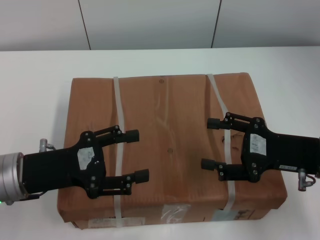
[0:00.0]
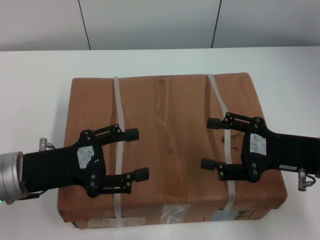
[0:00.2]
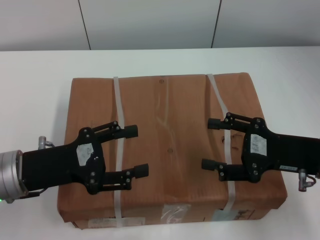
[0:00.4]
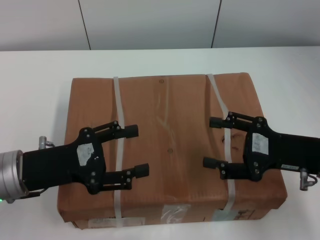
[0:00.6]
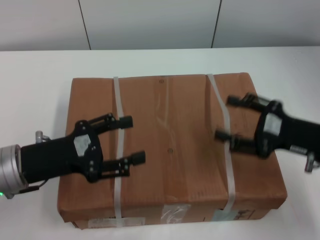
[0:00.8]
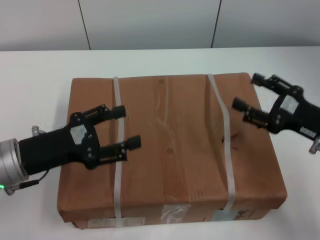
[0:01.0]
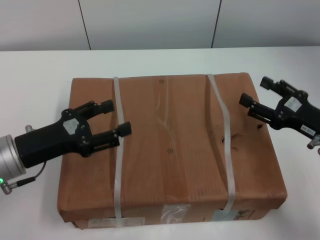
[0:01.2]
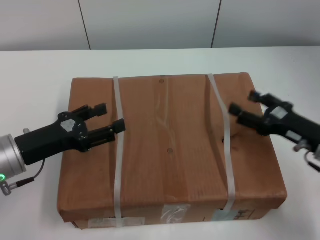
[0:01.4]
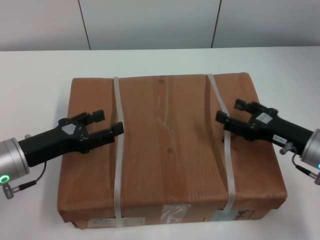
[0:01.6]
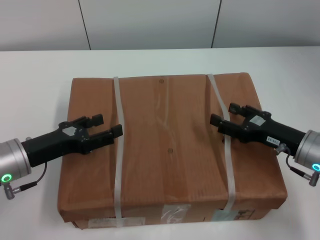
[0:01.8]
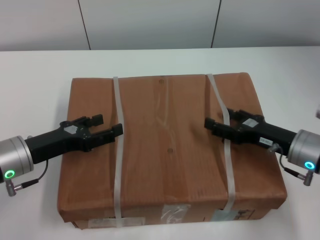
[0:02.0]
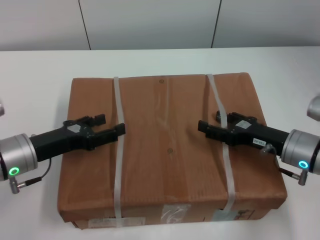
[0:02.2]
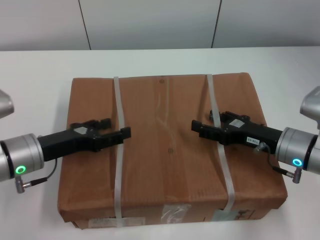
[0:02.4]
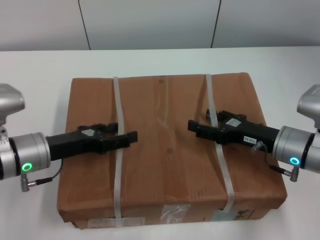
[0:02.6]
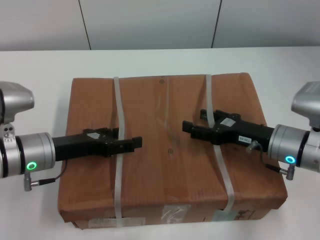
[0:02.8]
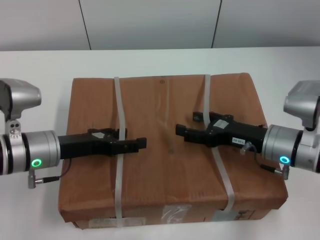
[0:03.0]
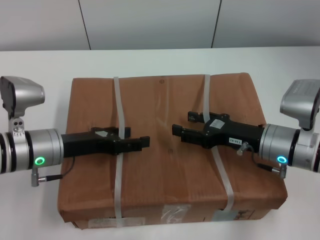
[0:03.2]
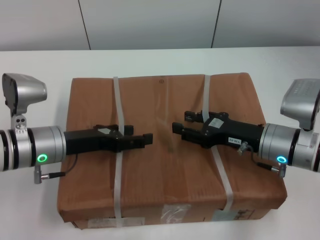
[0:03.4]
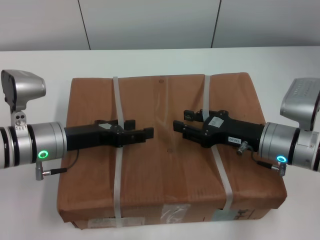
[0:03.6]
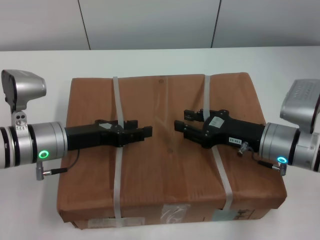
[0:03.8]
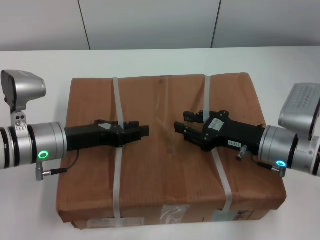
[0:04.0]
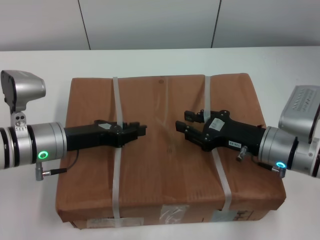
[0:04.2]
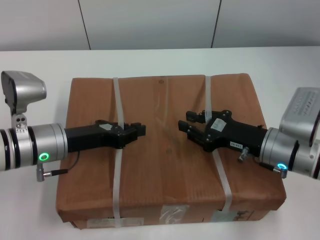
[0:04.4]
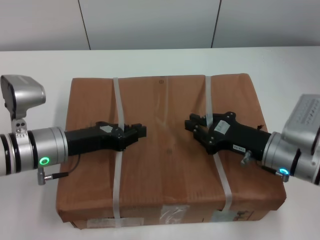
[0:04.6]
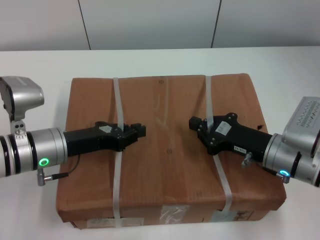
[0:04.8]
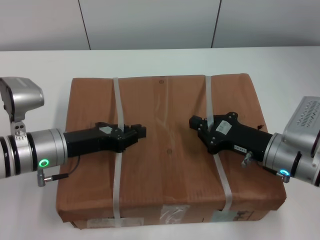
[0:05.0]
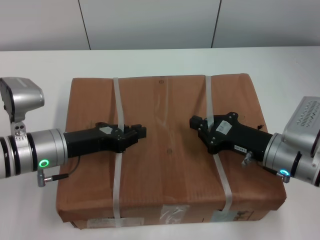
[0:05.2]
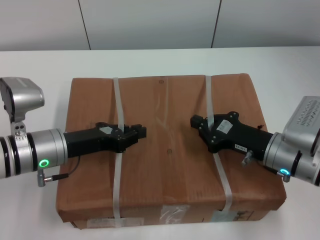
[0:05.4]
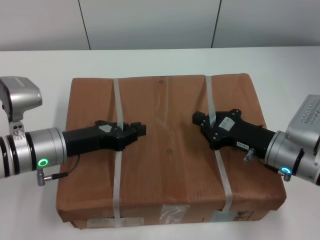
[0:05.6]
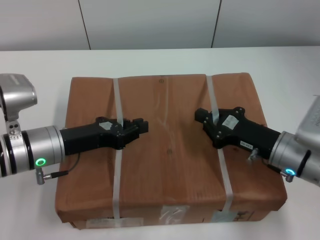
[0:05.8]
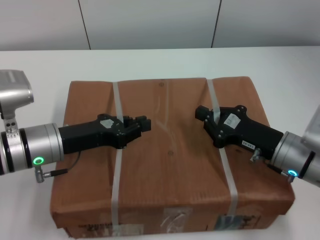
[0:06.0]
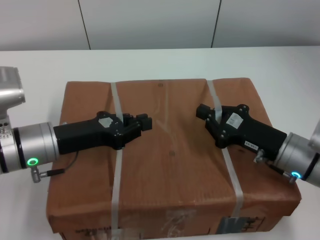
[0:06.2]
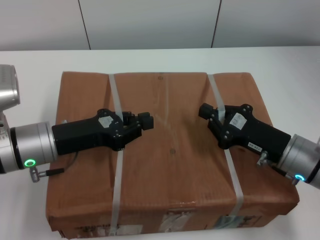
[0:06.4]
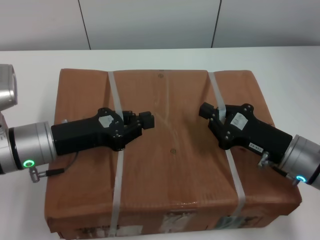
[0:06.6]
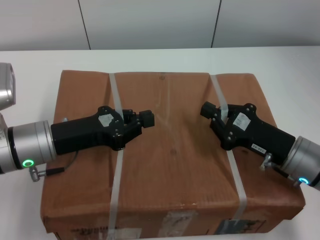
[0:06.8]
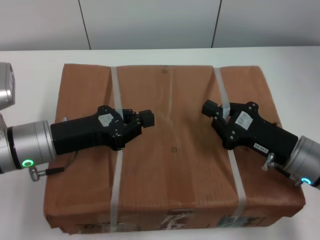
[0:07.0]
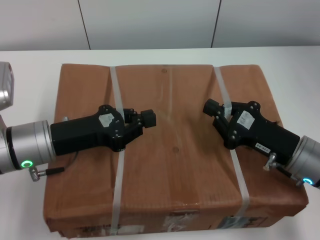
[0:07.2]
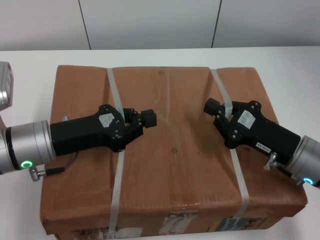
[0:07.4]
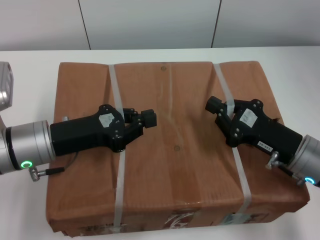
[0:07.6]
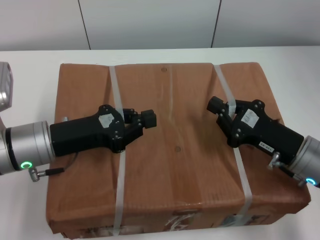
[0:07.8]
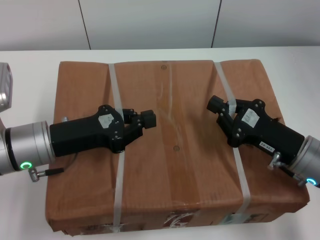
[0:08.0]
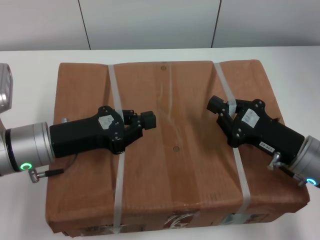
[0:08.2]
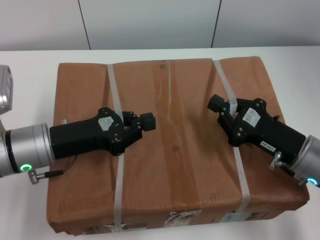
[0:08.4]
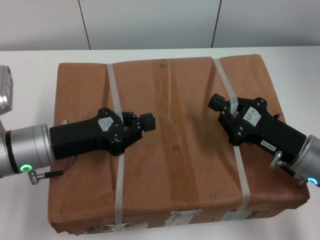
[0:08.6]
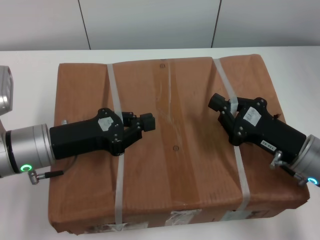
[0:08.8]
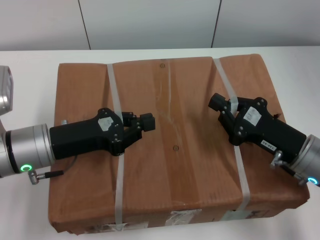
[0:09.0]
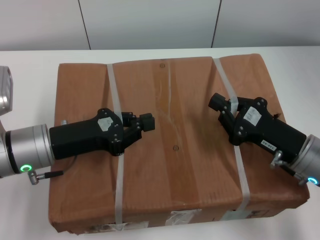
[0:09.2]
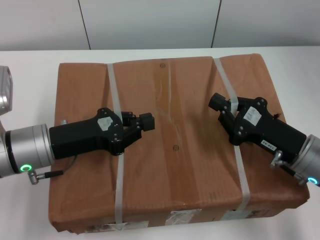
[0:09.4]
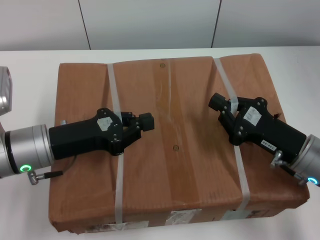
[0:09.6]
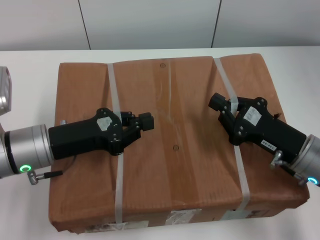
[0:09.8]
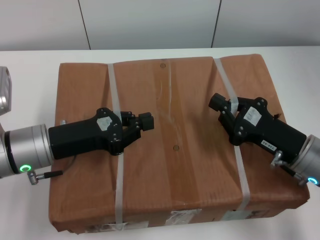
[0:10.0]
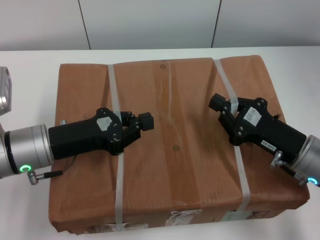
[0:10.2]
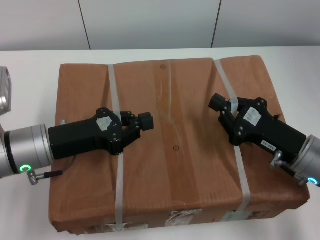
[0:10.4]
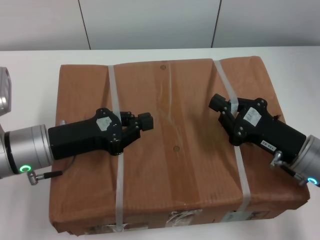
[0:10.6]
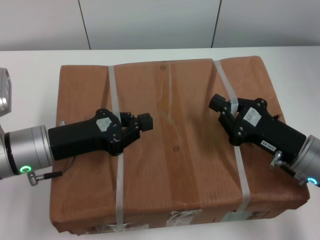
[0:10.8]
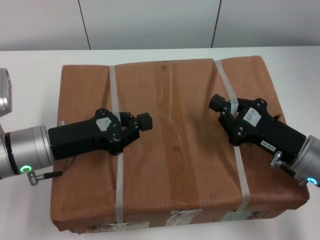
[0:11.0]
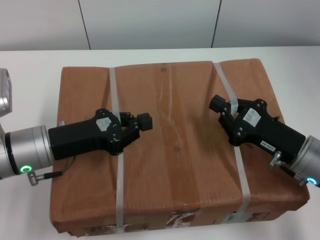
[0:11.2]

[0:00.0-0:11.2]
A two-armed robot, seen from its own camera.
Task of the whole recording: pick up the box from the table with both arms.
Step, 0:00.0 to 0:05.0: Grasp the bandage with left gripper.
Step, 0:00.0 to 0:05.0: Grasp the bandage with right gripper.
Step, 0:05.2 to 0:07.6: Lift the box with left gripper.
Step, 0:05.2 to 0:07.6: Lift the box with right gripper.
0:00.0 to 0:01.6: The right gripper moves downward, about 5 cm.
0:01.6 to 0:03.2: The right gripper is displaced to the left by about 5 cm. Meanwhile the left gripper changes place by approximately 5 cm.
0:03.2 to 0:04.8: The right gripper closes up; the left gripper closes up.
0:06.4 to 0:08.0: The grippers move only a little.
0:08.0 to 0:11.2: Neither gripper changes place.
